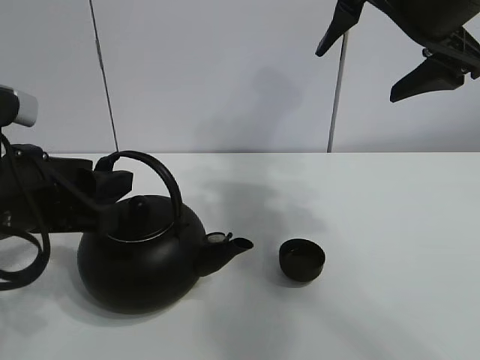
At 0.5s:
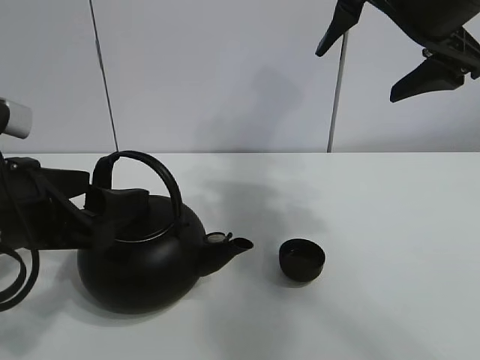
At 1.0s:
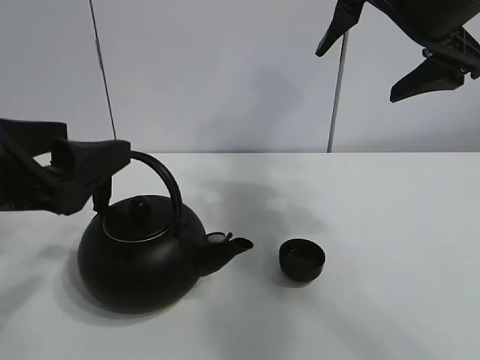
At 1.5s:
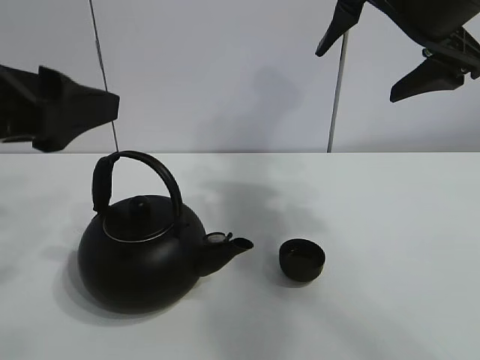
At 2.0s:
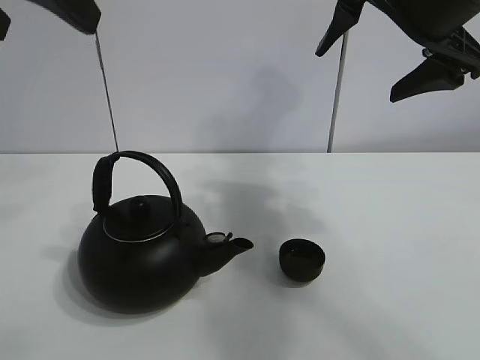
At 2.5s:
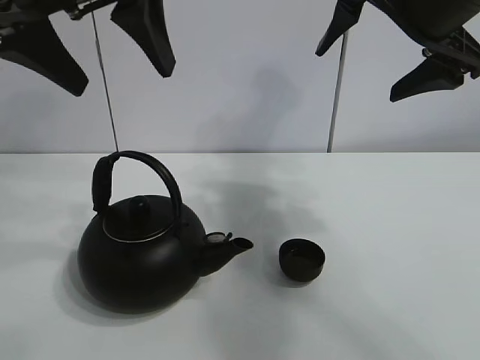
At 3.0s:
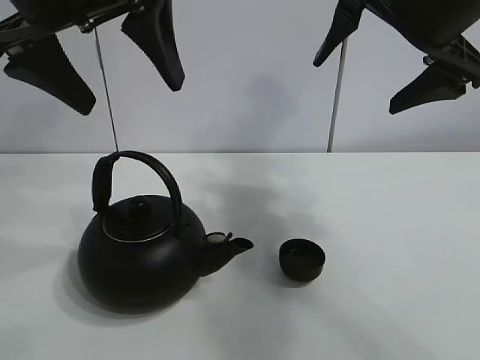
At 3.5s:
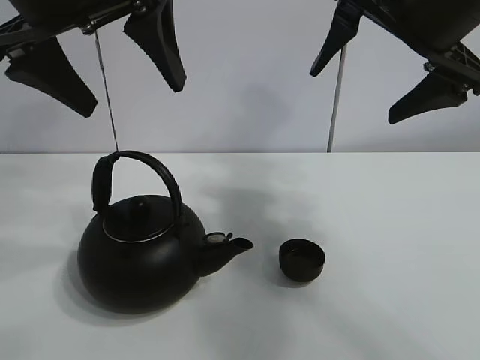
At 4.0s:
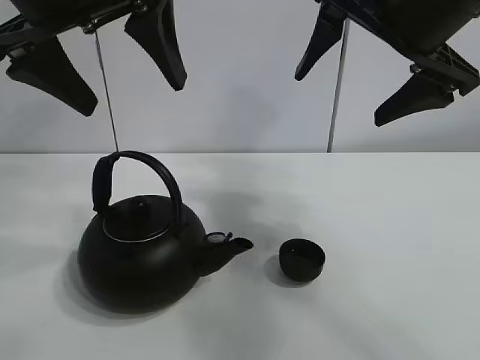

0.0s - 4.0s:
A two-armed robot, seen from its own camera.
Task of the whole recording: pour tea into the teacup.
0.0s - 2.0s: The left gripper heads upward, covering about 20 cm, and opens its fingers.
2.0s - 4.0s: The left gripper goes approximately 10 cm forward and to the right.

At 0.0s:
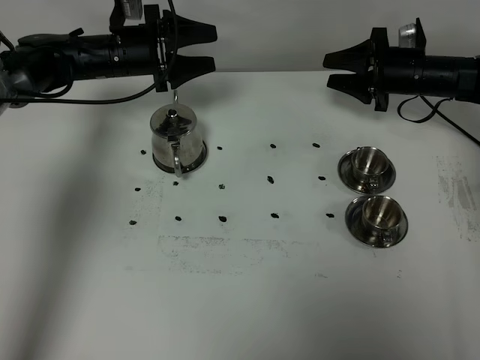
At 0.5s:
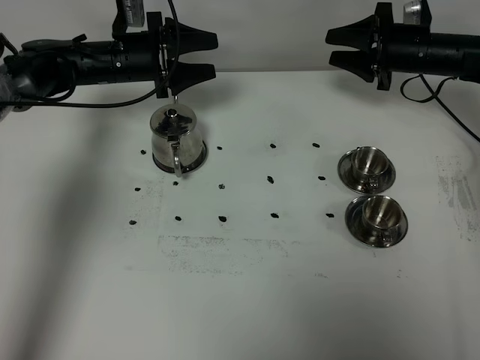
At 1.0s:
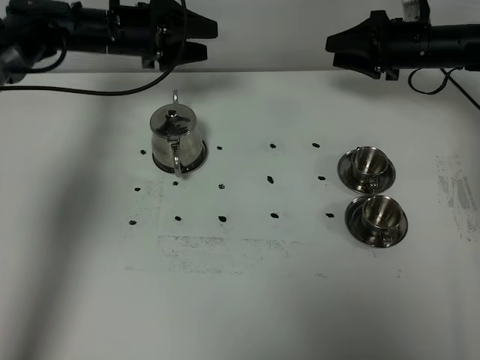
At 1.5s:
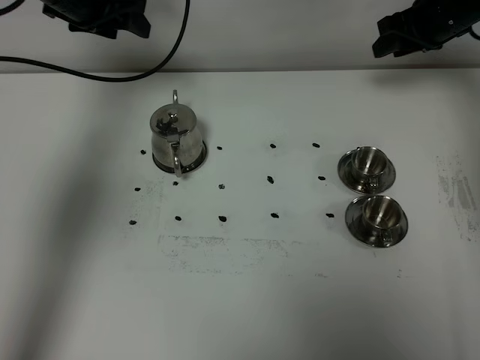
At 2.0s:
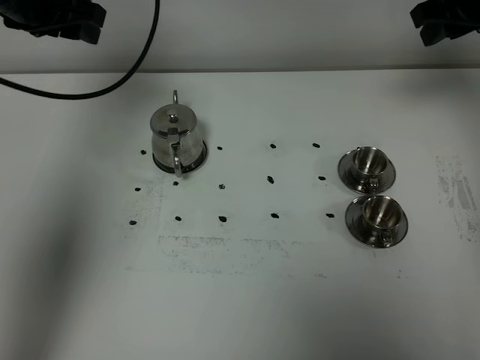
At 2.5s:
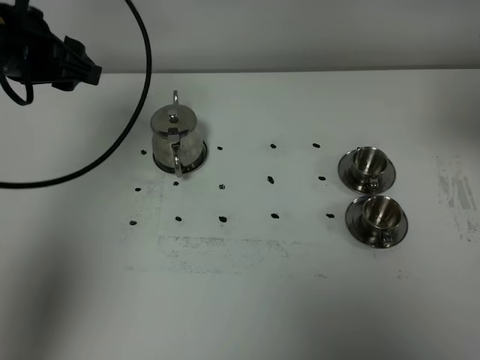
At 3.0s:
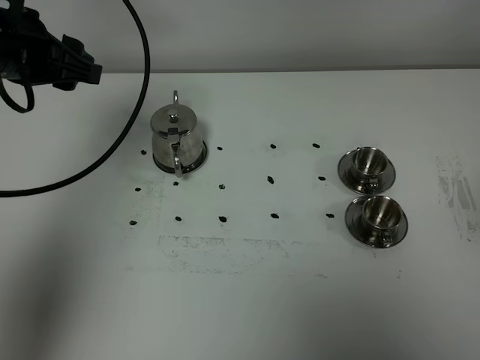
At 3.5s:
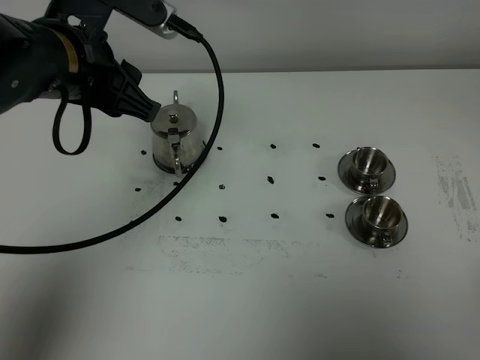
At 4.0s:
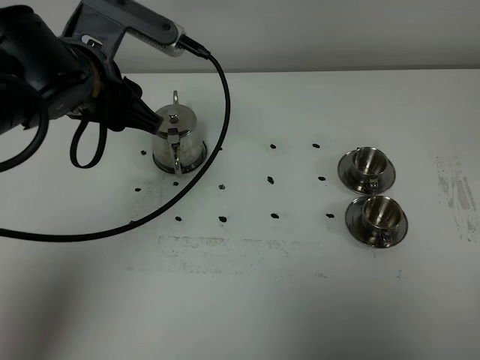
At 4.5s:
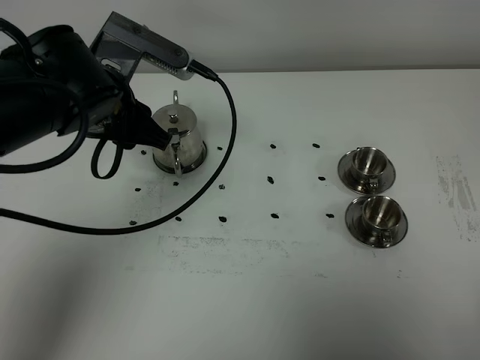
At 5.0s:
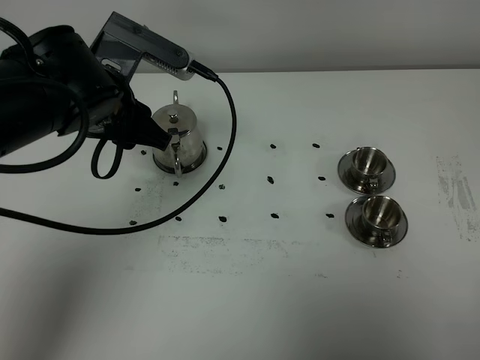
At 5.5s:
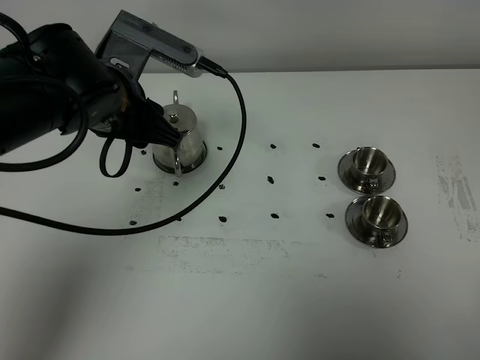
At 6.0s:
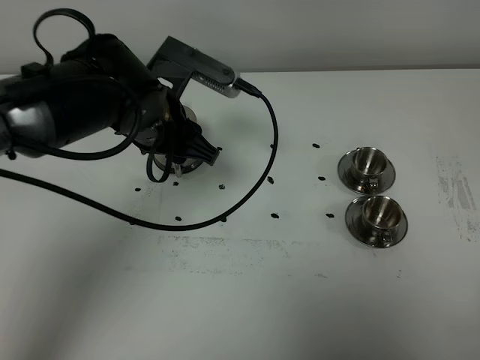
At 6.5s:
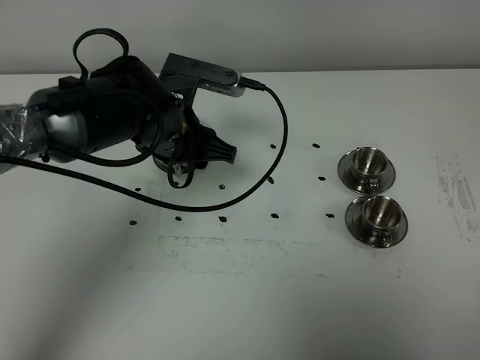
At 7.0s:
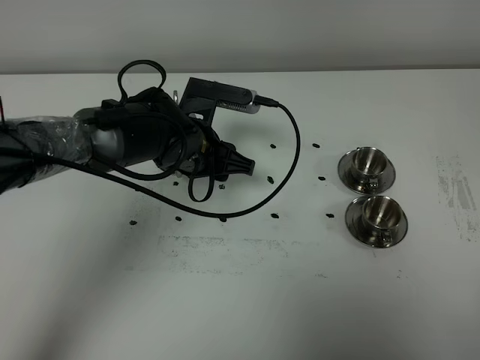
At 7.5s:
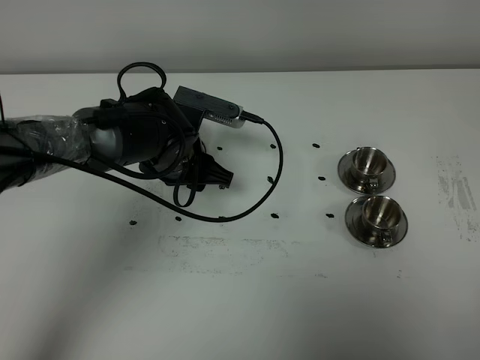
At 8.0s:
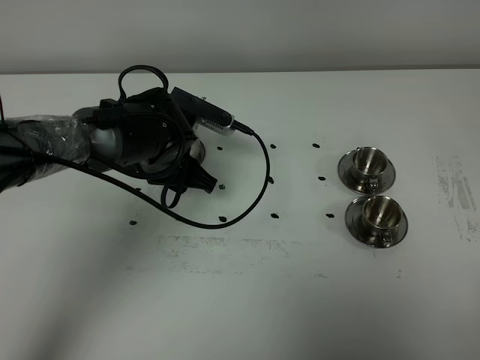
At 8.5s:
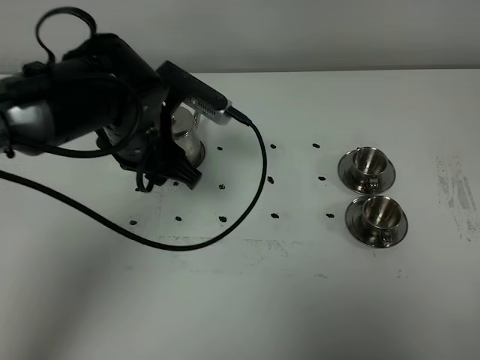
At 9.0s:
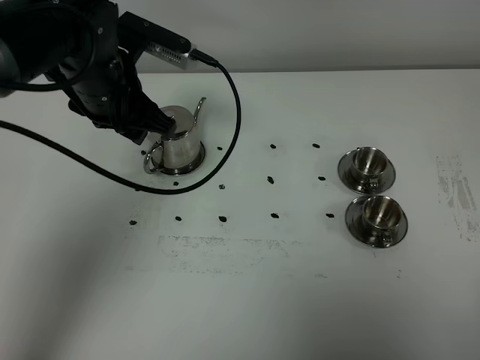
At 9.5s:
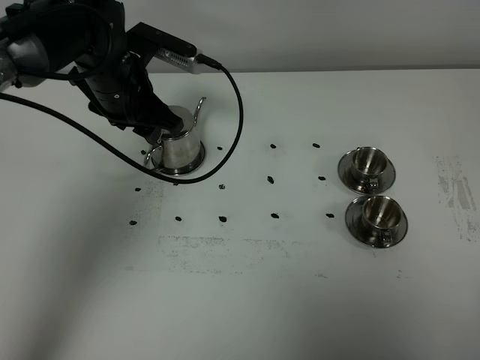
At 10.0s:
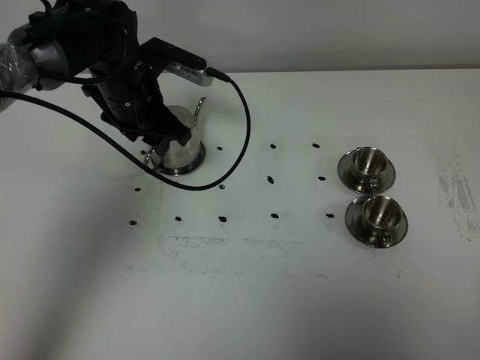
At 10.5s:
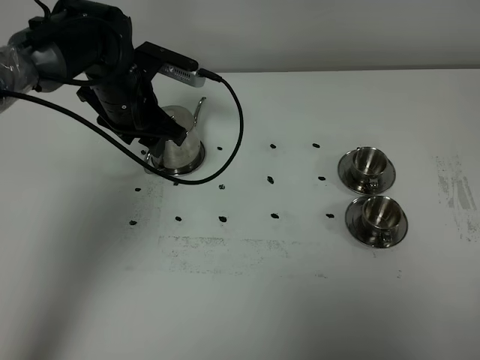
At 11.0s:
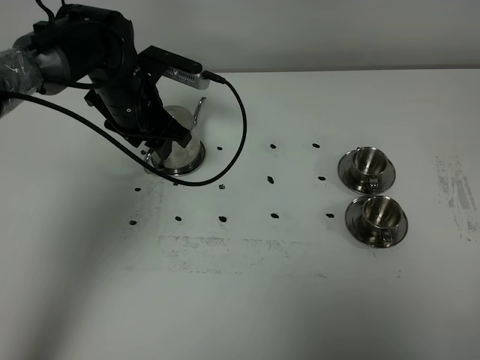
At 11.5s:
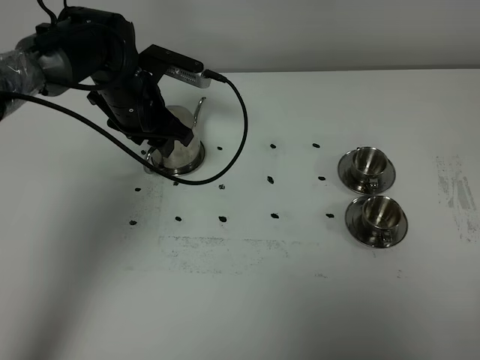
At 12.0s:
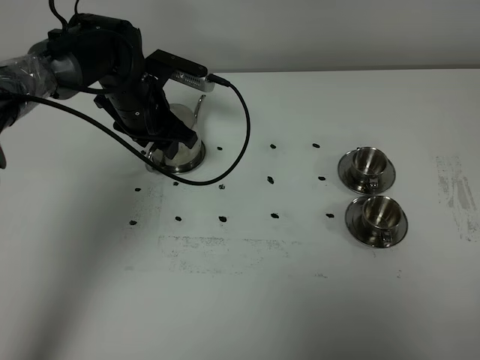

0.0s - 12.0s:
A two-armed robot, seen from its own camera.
Task of the whole recording: grasp the stainless steel teapot and pour the tea into the two stainless steel teacups one by one, put the stainless steel teapot back in its original place.
0.0s - 2.0s: Both grippers travel together upward and backward, about 20 cm. The right gripper closes its fingers.
2.0s - 4.0s: The left gripper moves backward and to the right, some 15 cm. The right gripper moves backward, approximately 40 cm.
4.0s - 6.0s: The left gripper travels downward by roughly 10 cm.
6.0s - 8.0s: The left gripper goes some 10 cm downward.
8.0s - 10.0s: The left gripper moves forward and upward, roughly 10 cm.
10.0s - 12.0s: The grippers move only a little.

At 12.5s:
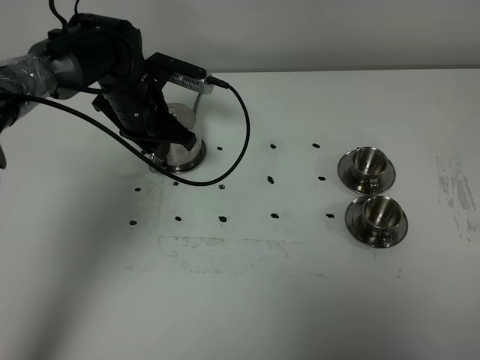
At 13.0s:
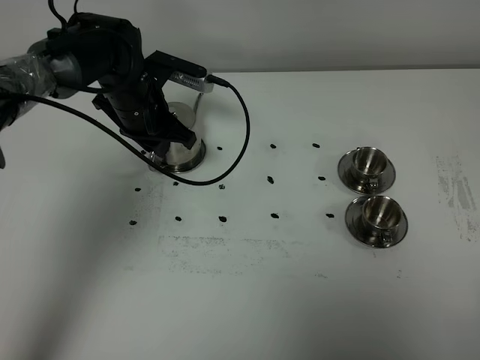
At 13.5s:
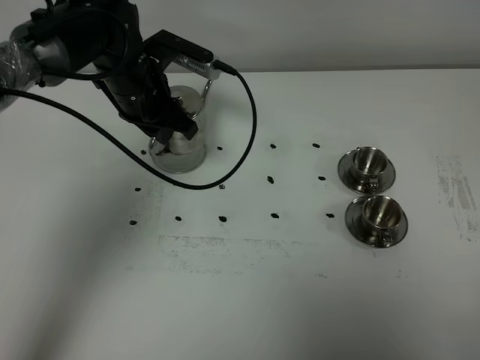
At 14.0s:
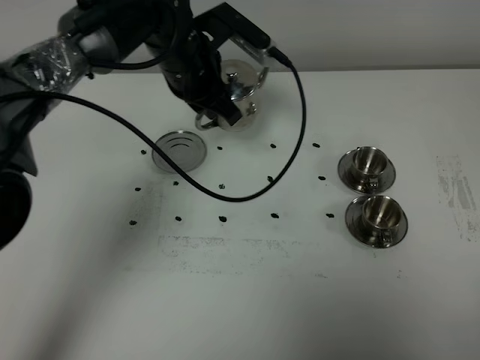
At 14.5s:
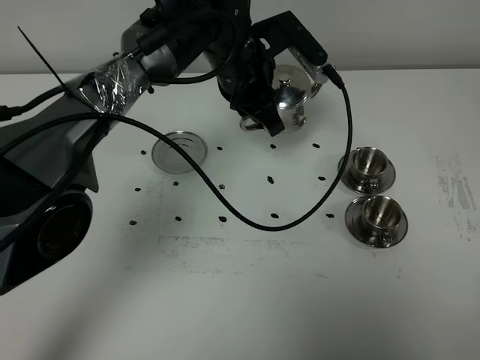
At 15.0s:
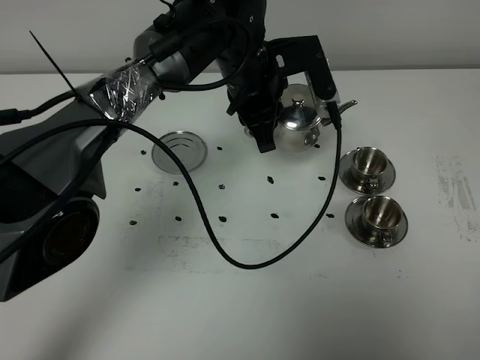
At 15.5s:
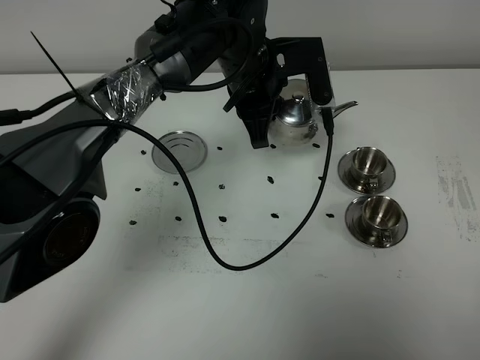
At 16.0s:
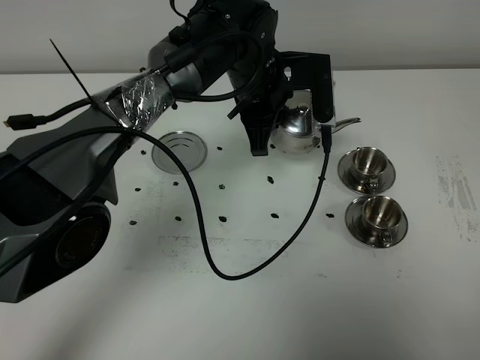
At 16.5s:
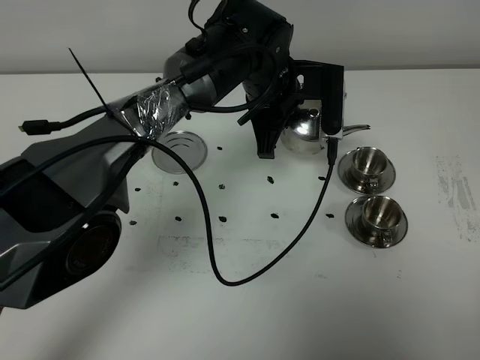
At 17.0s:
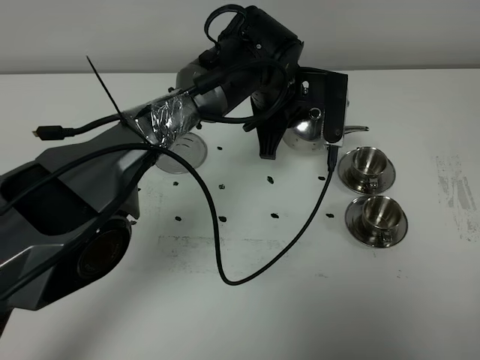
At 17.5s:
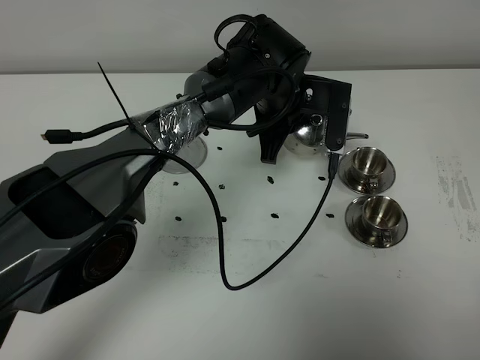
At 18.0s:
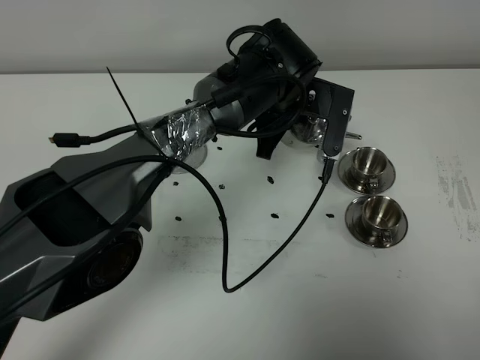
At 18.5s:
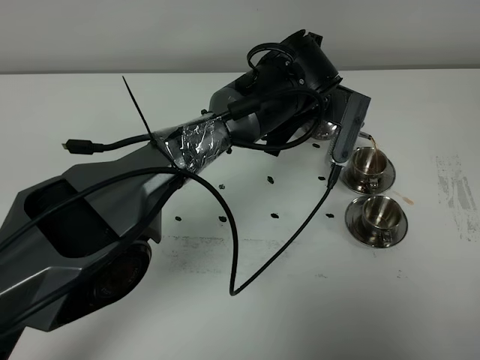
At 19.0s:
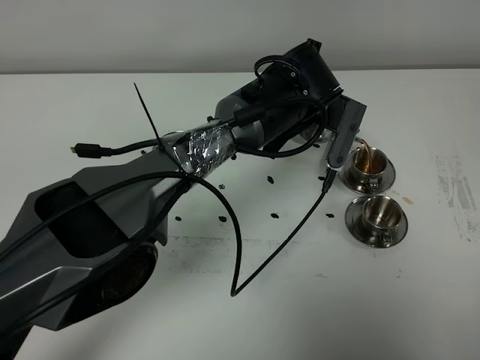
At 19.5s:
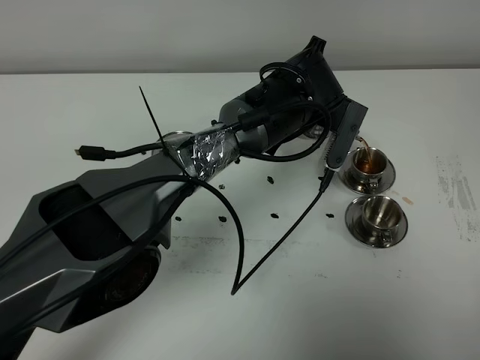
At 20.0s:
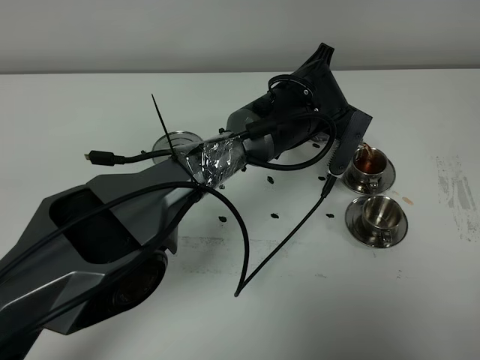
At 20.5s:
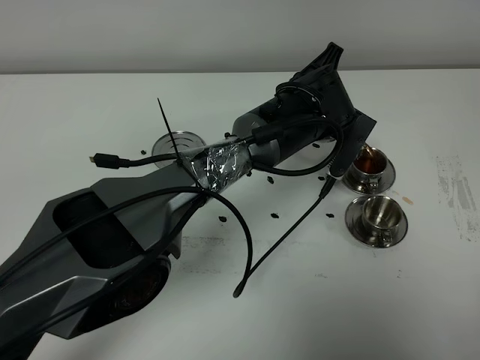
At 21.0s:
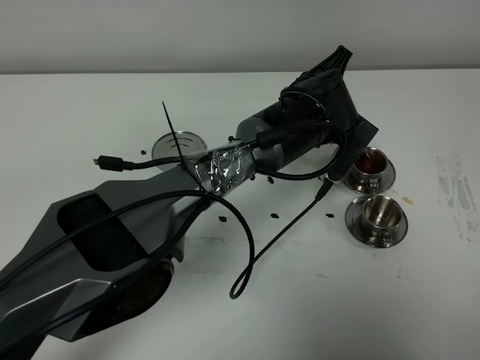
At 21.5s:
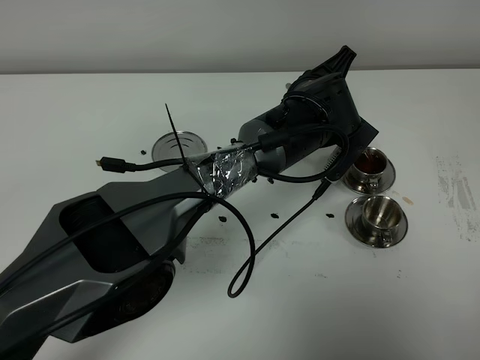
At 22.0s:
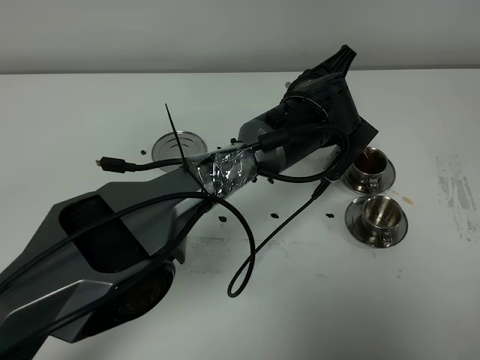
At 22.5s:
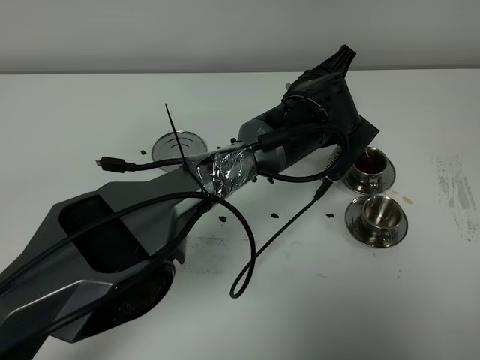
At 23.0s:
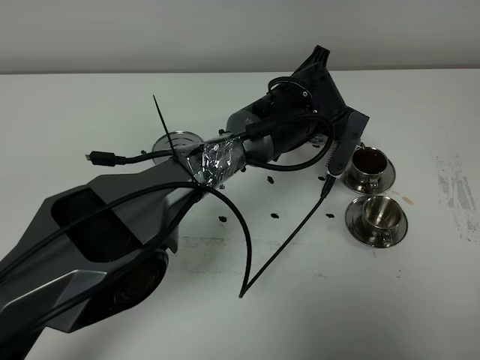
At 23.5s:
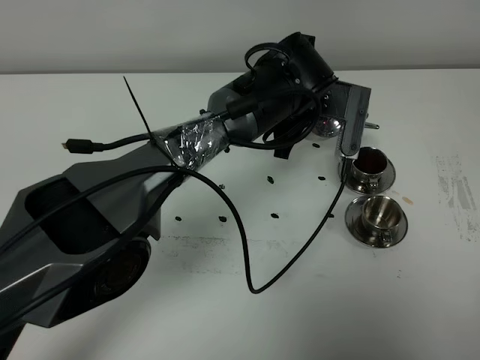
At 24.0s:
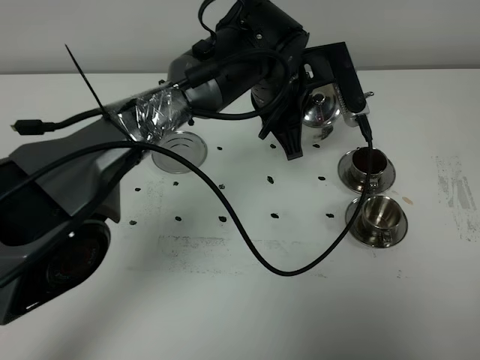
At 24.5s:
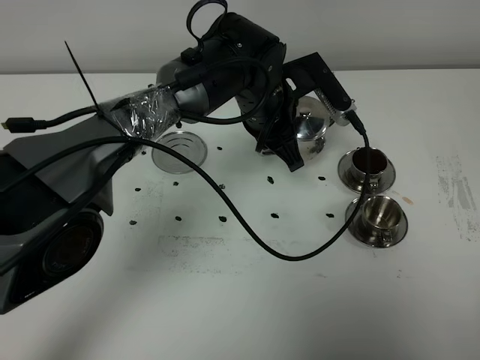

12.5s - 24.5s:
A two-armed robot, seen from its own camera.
Task of the whole recording: grasp the stainless steel teapot and pour the tea into the two stainless steel teacups one by one, put the stainless steel teapot back in its original place.
12.5s - 14.5s: The left gripper is displaced to the right and upward by roughly 15 cm.
20.5s - 22.5s: There are only small adjustments of the grippers.
22.5s - 24.5s: The left gripper is displaced to the left by roughly 5 cm.
